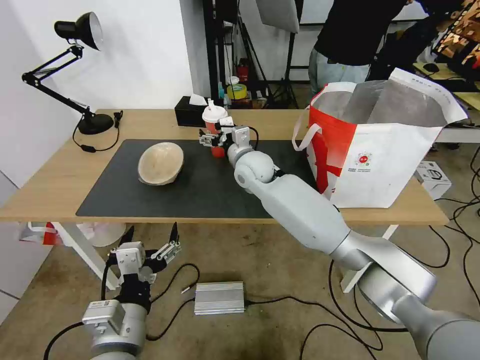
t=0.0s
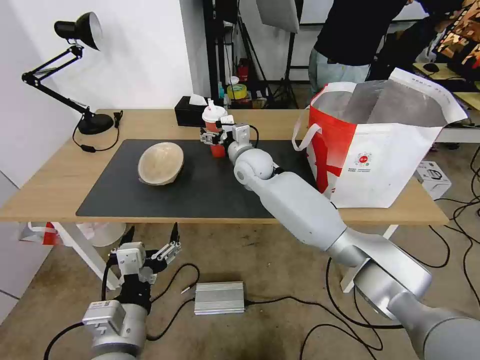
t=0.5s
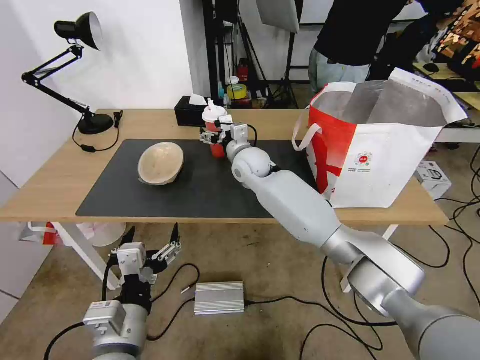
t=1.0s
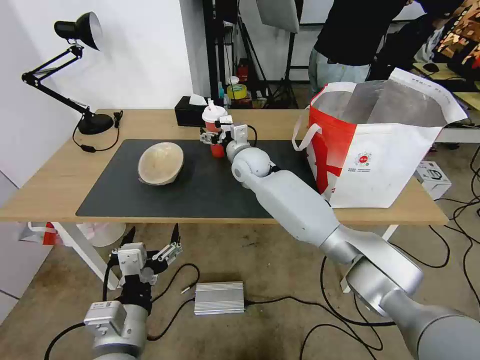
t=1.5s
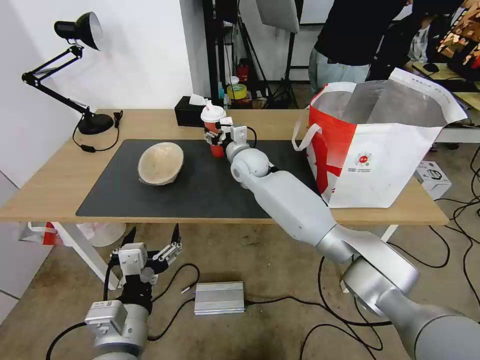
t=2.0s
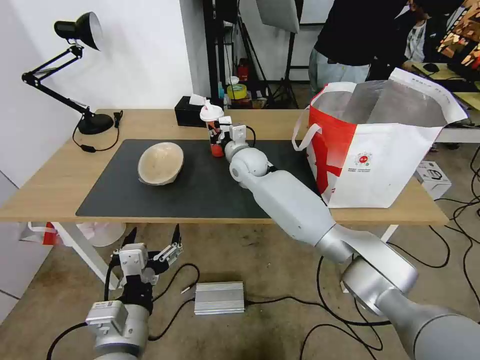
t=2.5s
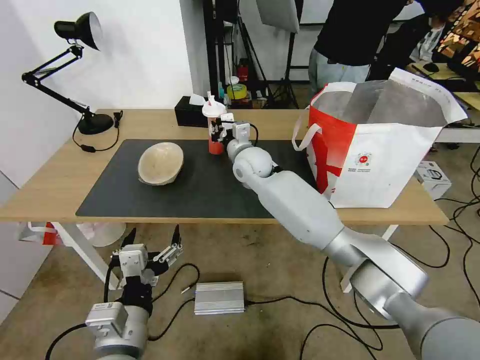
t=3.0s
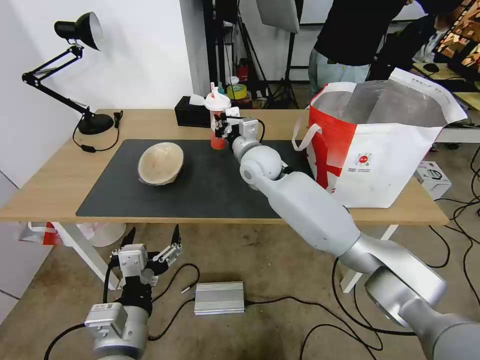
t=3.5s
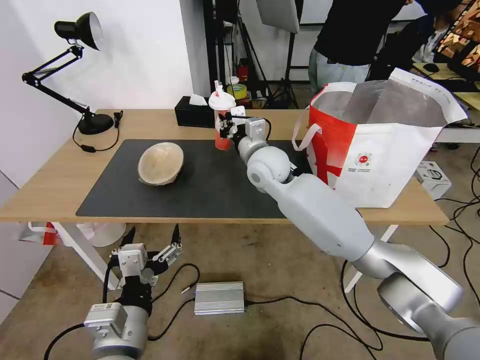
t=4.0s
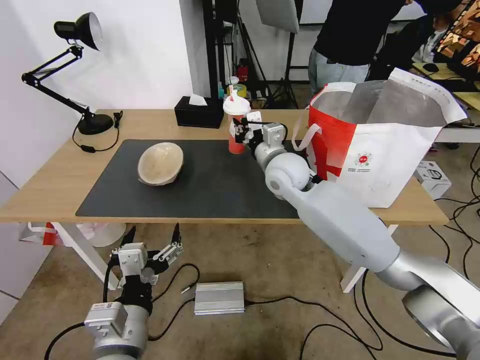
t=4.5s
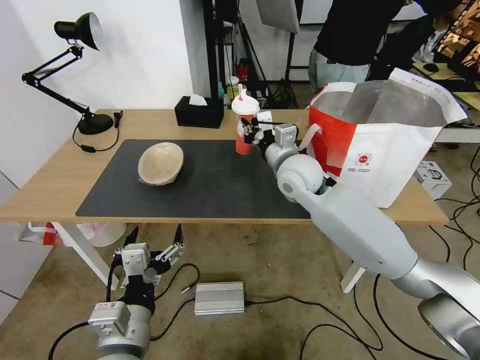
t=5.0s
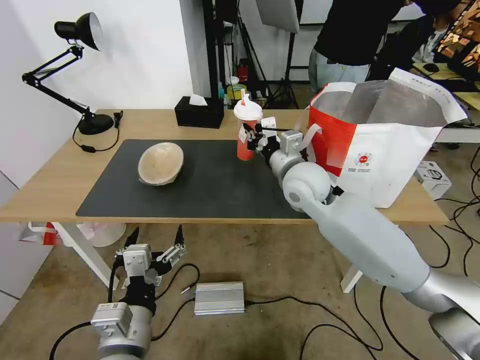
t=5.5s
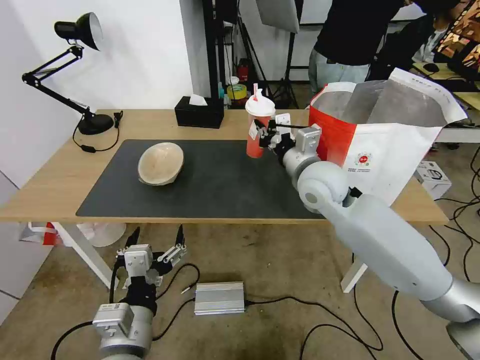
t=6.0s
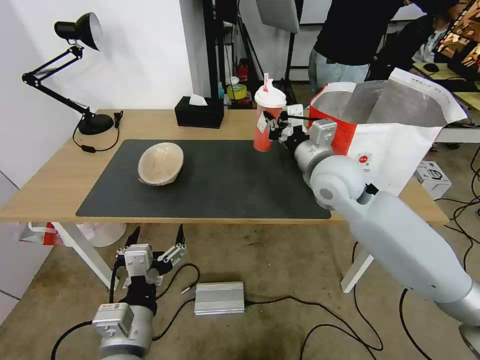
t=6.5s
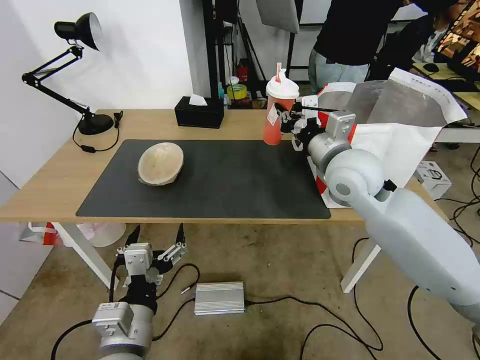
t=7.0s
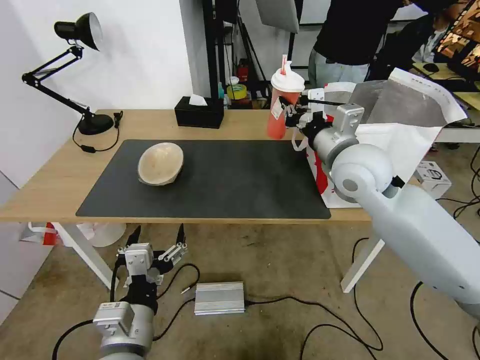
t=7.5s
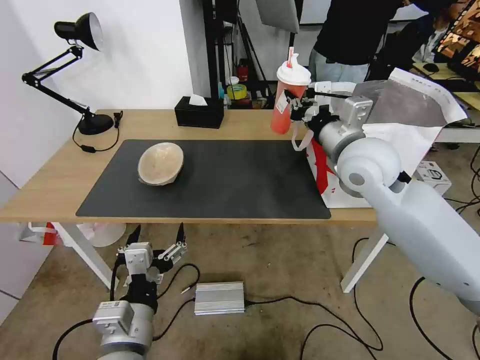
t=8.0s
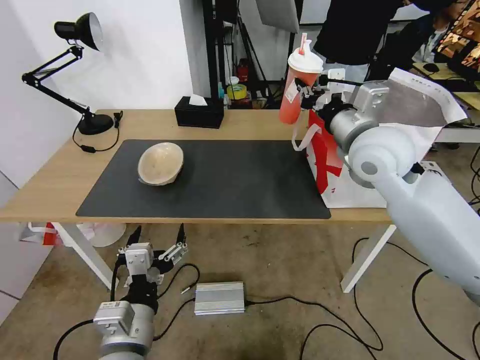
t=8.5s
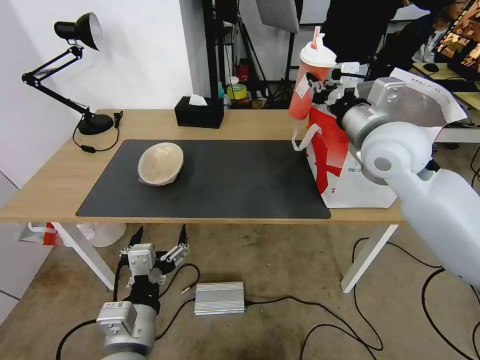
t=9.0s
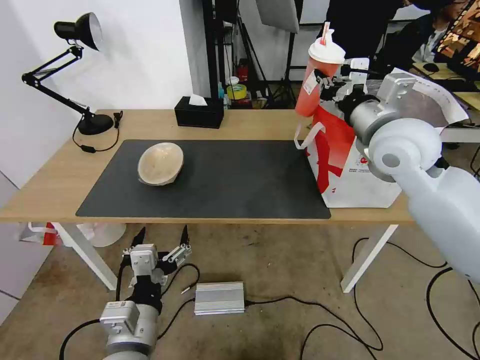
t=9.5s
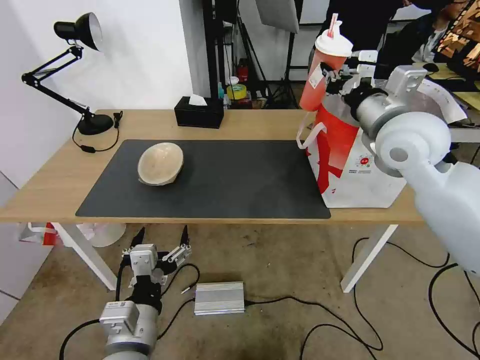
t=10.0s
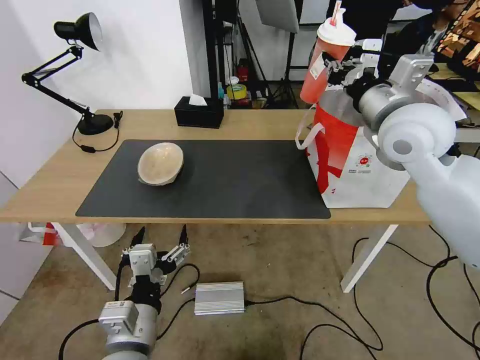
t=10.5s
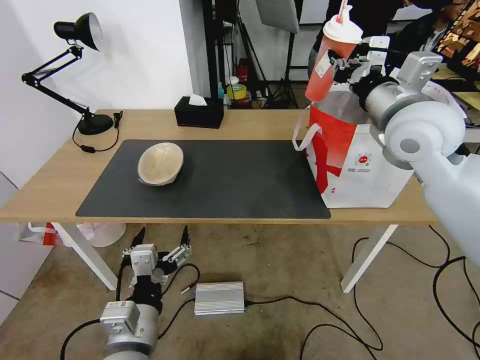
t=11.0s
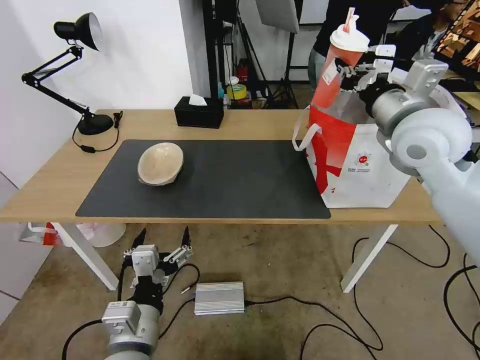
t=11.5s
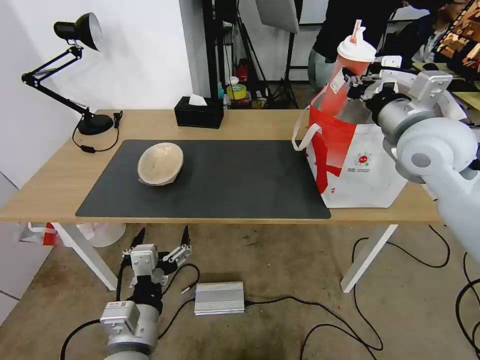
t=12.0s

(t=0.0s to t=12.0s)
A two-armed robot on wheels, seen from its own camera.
Task of the whole recording: Pick up the trash from the table and place it into the takeout bag.
t=0.0s - t=2.0s: There are only small adjustments of the grippers.
t=2.0s - t=4.0s: The right gripper goes some 10 cm backward and upward, and closes up.
t=4.0s - t=6.0s: The right gripper moves to the right and backward, about 10 cm.
t=6.0s - t=8.0s: The right gripper goes about 10 cm upward and to the right.
t=8.0s - t=10.0s: The right gripper travels to the right by roughly 5 cm.
t=10.0s - t=12.0s: There are only small adjustments of the grippers.

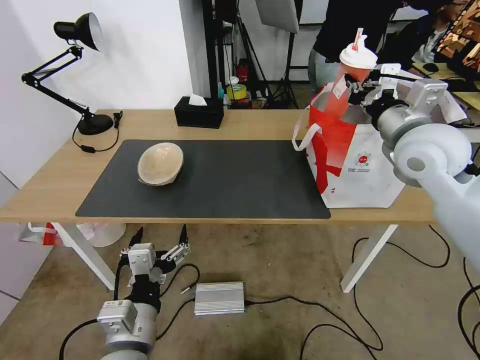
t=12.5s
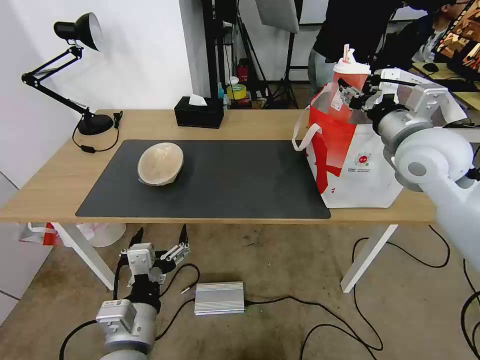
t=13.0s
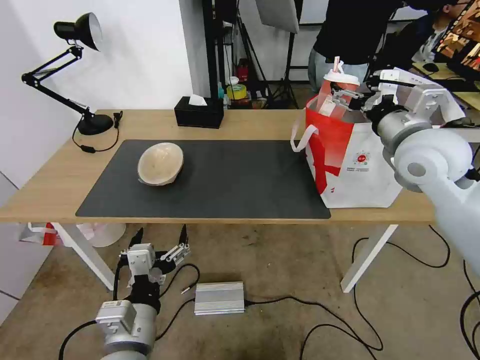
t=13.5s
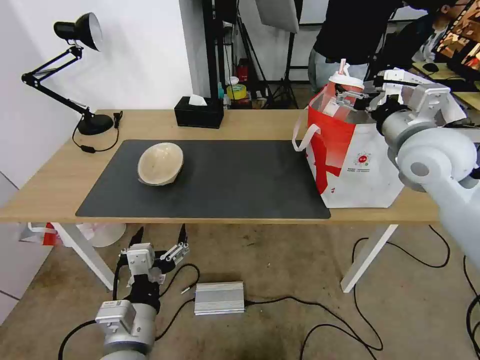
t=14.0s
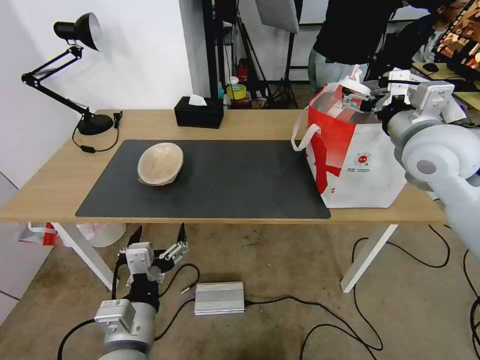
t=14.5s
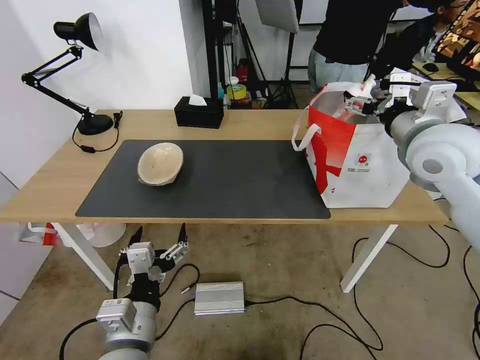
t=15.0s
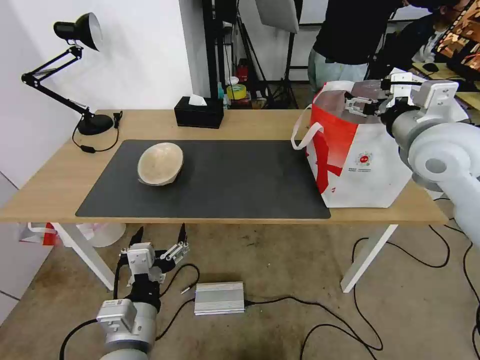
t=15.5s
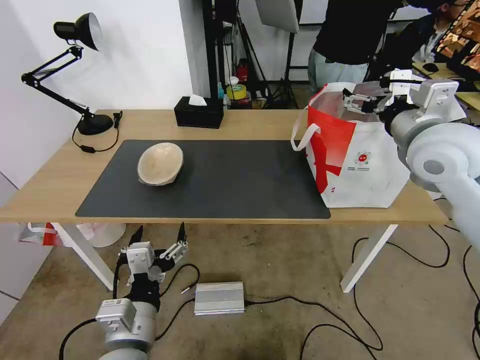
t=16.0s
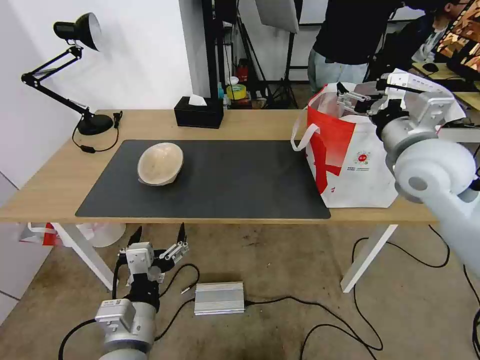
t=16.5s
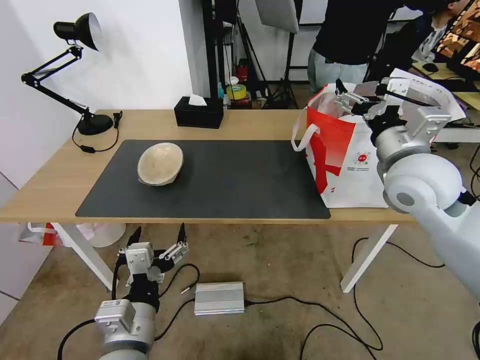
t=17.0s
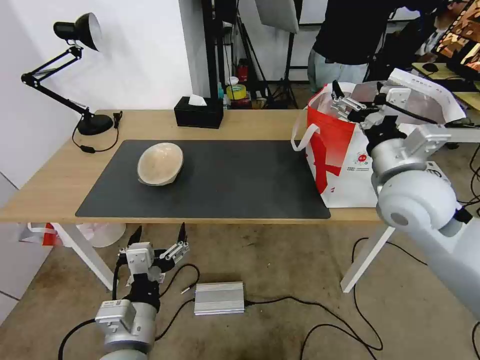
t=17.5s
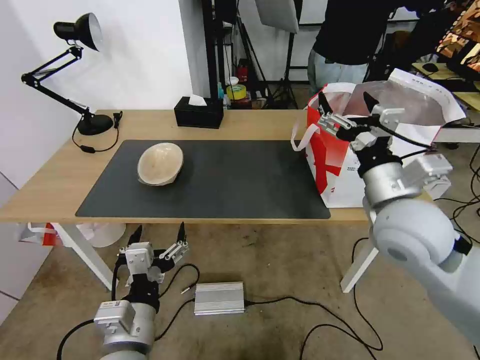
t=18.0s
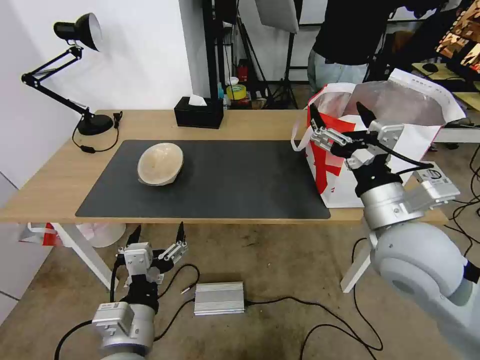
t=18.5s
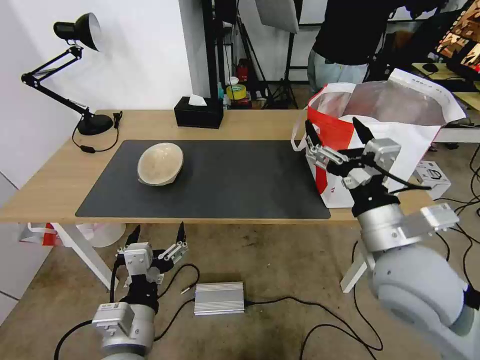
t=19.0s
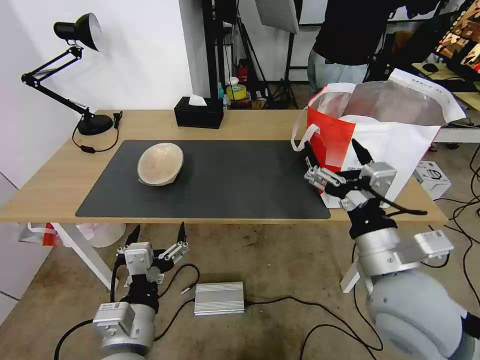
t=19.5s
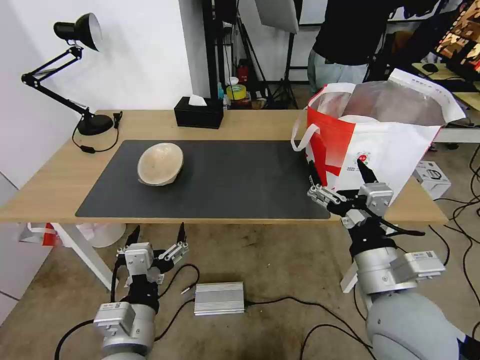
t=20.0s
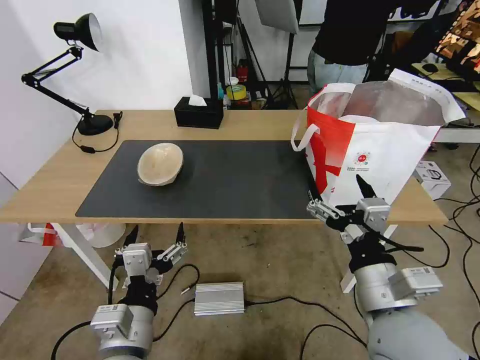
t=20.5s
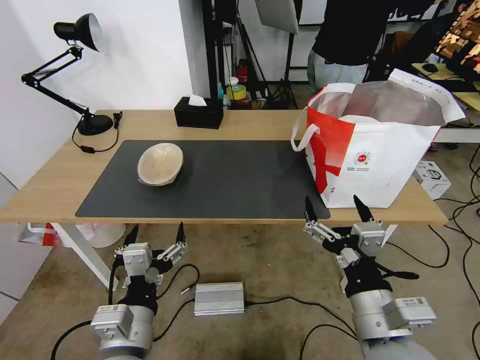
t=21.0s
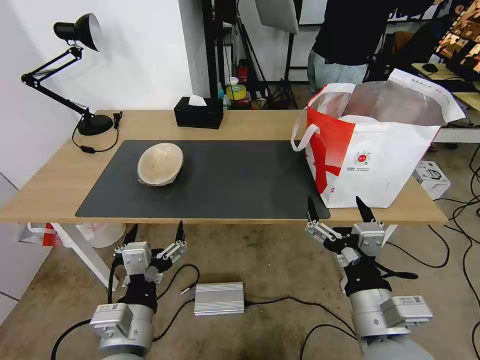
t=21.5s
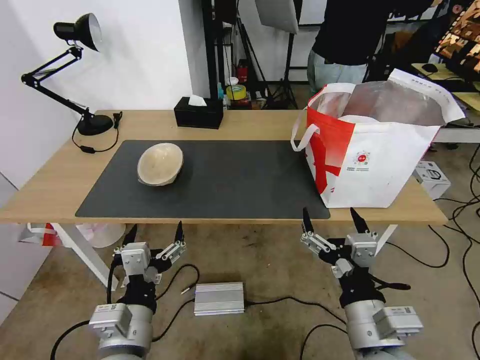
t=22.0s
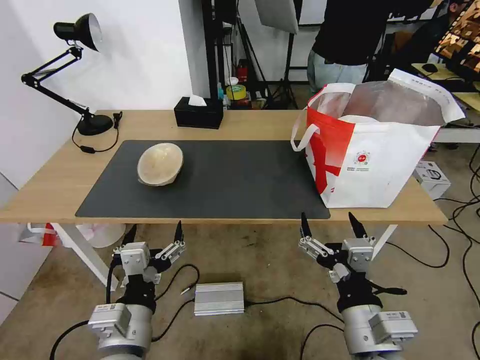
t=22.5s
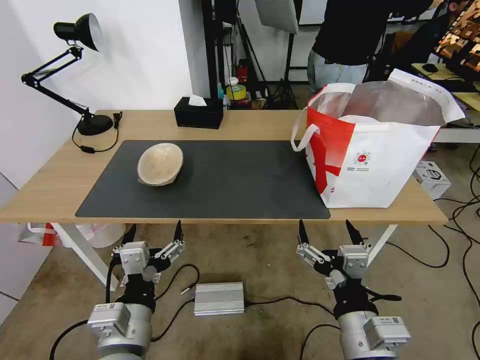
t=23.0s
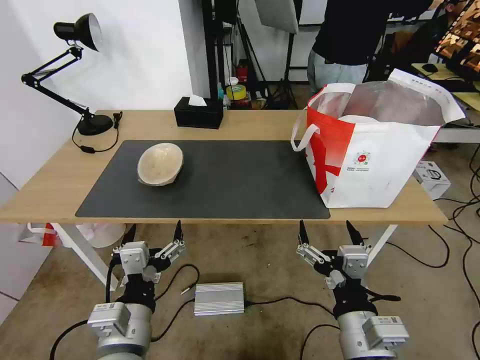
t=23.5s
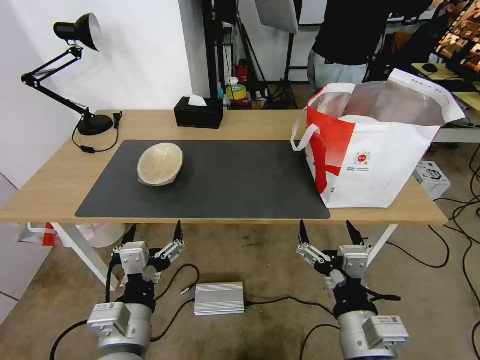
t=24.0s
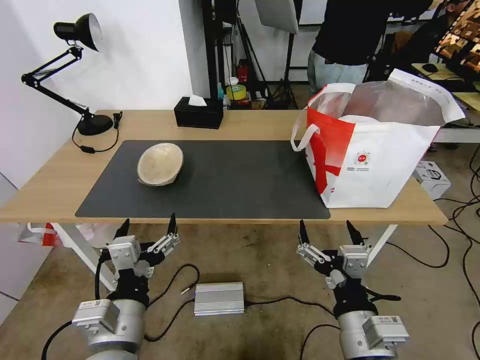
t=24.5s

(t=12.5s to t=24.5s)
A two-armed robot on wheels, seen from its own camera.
Task of the whole recording: Pick up the trash from the table and place it into the takeout bag.
t=12.5s - t=14.5s: The right gripper opens.
t=14.5s - t=16.5s: There are only small adjustments of the grippers.
t=16.5s - t=18.5s: The right gripper shifts some 15 cm backward, downward and to the left.
t=18.5s - t=20.5s: The right gripper is displaced backward and downward by about 10 cm.
t=20.5s - t=22.5s: The right gripper moves about 5 cm.
t=22.5s - t=24.5s: The grippers make only small movements.

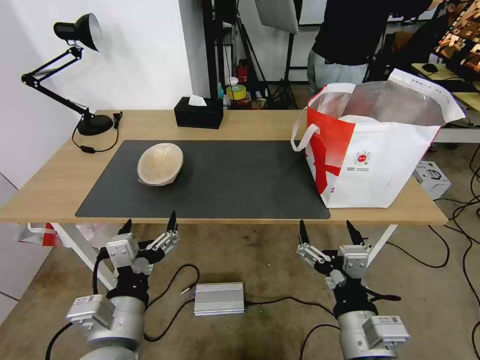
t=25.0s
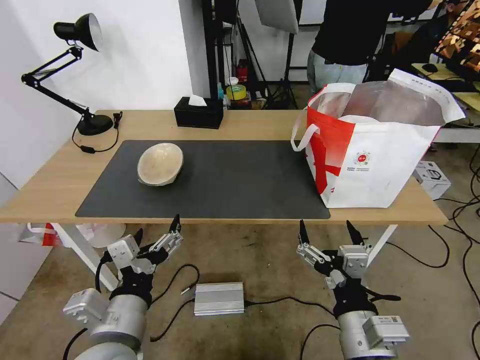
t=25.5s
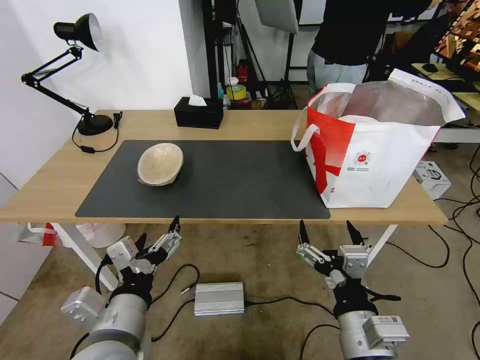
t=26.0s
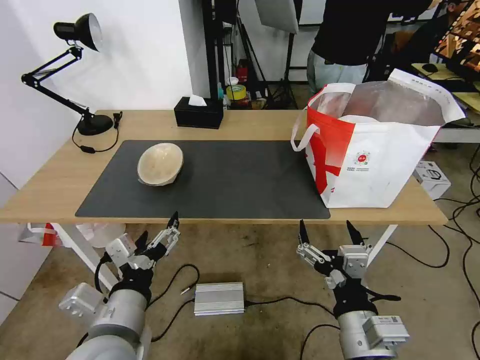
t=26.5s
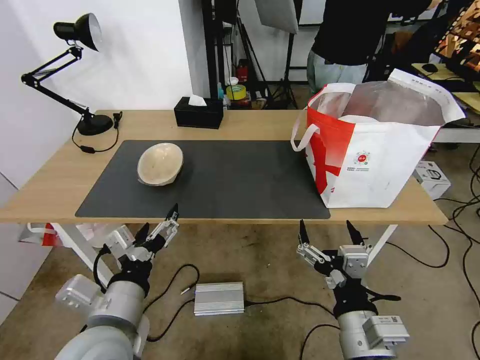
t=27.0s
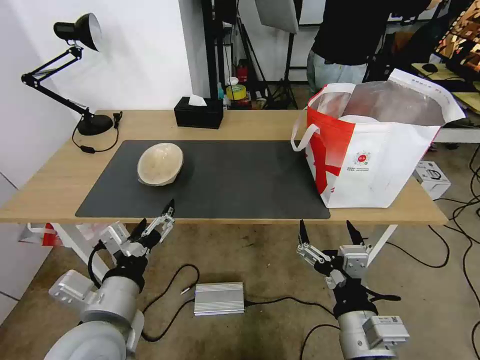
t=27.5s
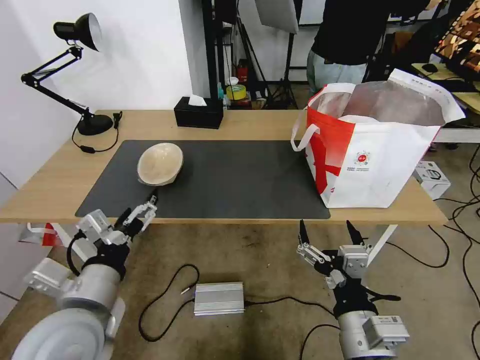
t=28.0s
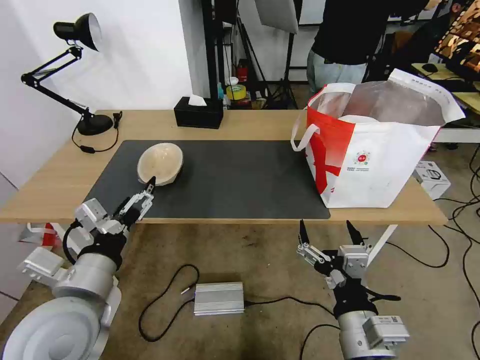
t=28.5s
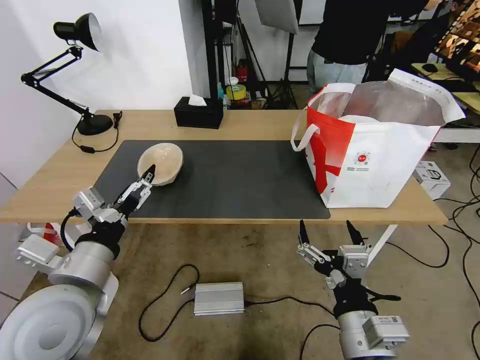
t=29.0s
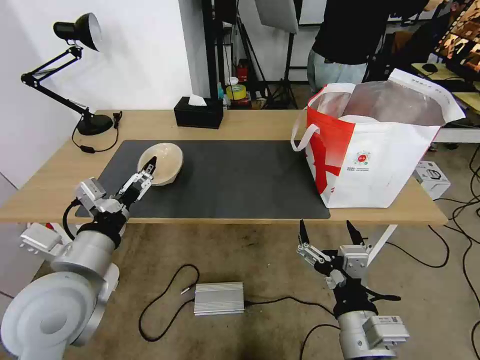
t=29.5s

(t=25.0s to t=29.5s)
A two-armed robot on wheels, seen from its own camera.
Task of the whole recording: Pick up the trash from the table and place it into the takeout bag.
t=27.0s - t=29.5s: The left gripper shifts about 10 cm forward and to the left.
